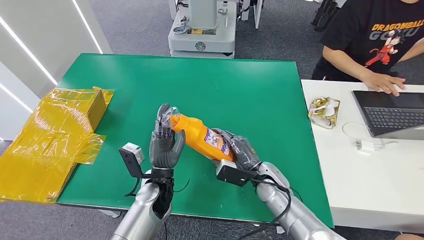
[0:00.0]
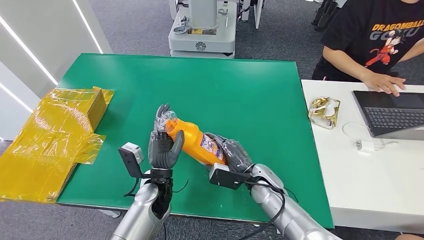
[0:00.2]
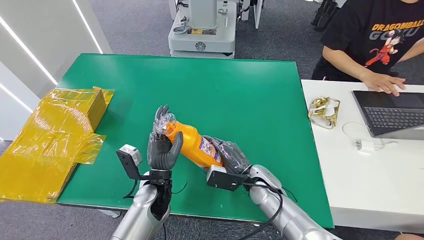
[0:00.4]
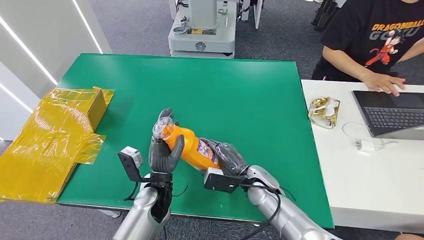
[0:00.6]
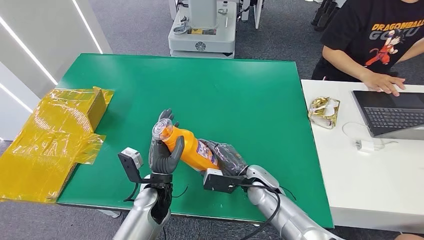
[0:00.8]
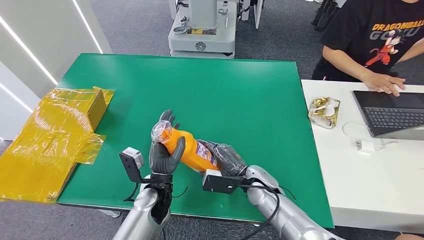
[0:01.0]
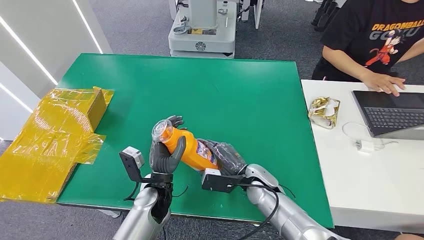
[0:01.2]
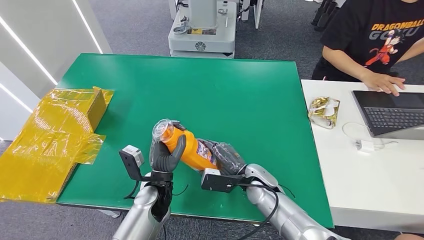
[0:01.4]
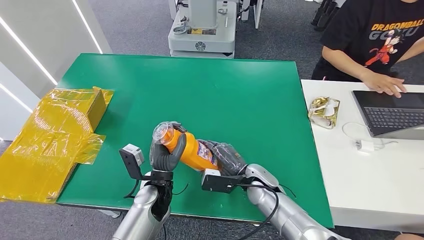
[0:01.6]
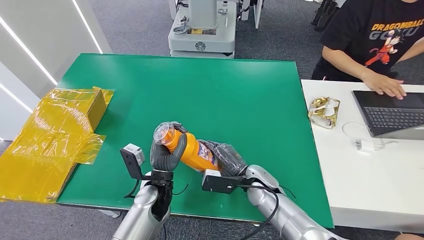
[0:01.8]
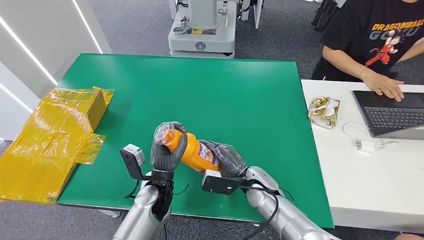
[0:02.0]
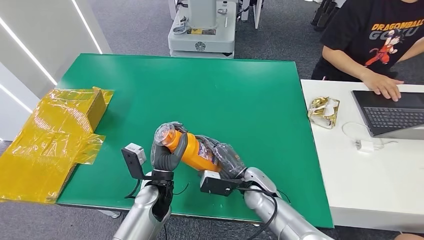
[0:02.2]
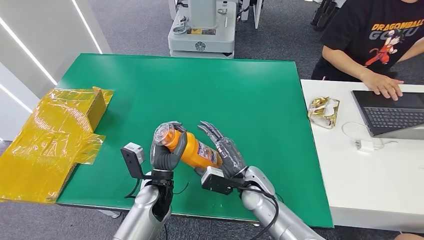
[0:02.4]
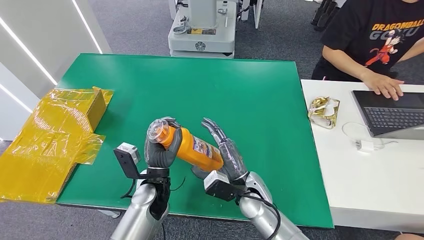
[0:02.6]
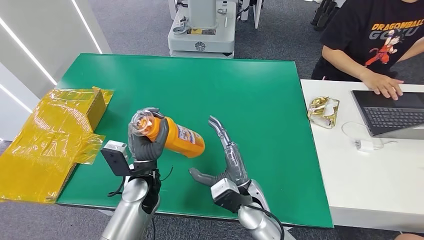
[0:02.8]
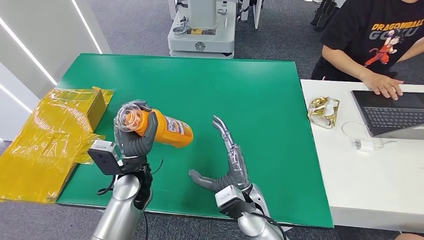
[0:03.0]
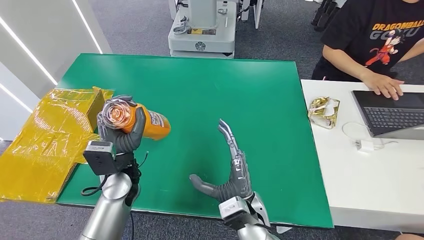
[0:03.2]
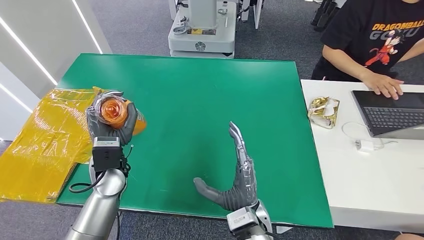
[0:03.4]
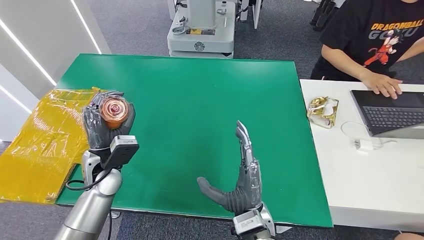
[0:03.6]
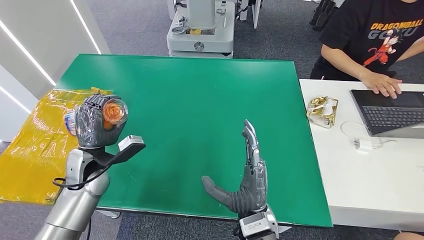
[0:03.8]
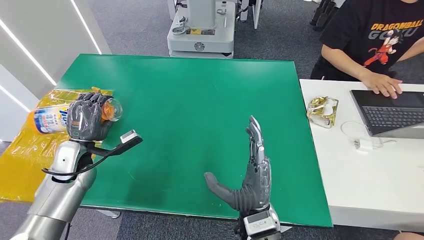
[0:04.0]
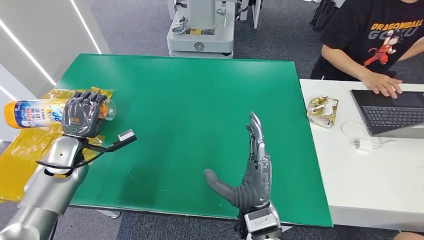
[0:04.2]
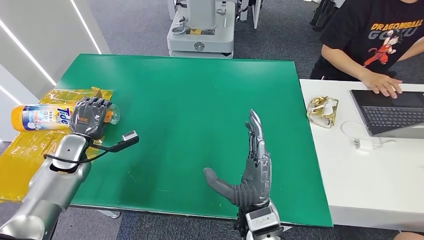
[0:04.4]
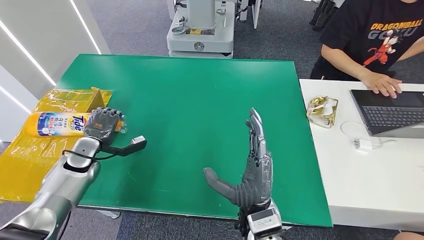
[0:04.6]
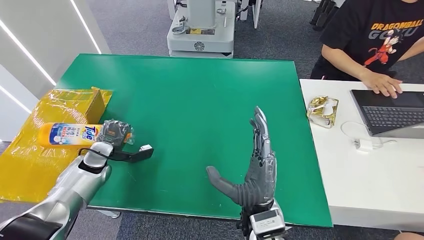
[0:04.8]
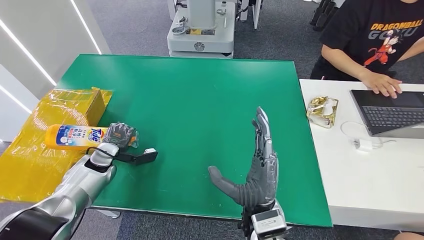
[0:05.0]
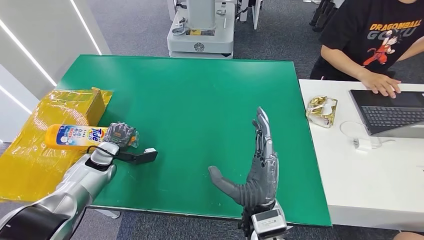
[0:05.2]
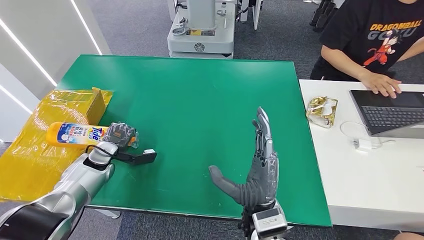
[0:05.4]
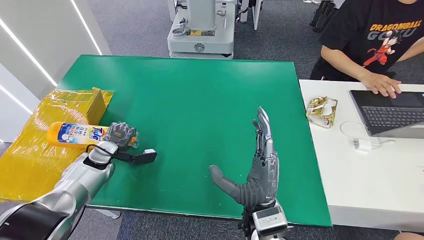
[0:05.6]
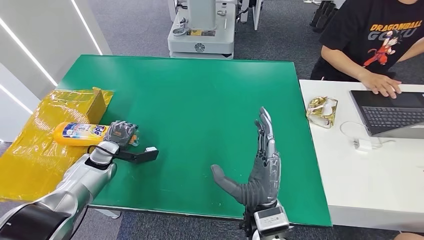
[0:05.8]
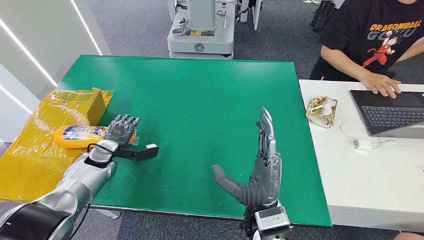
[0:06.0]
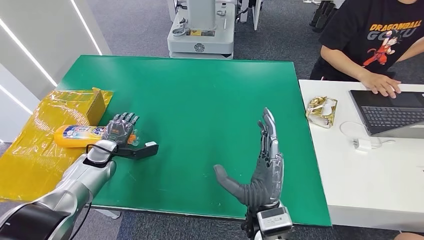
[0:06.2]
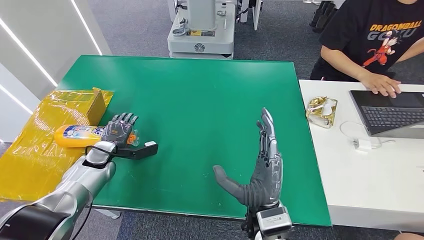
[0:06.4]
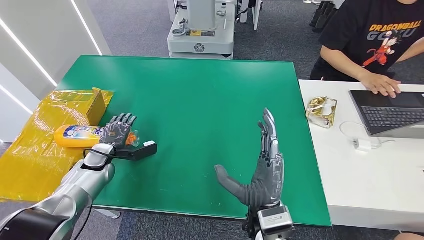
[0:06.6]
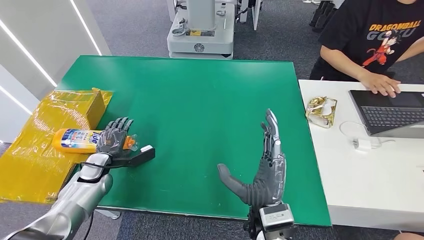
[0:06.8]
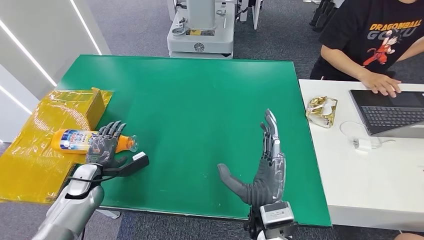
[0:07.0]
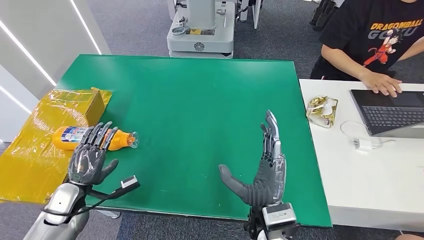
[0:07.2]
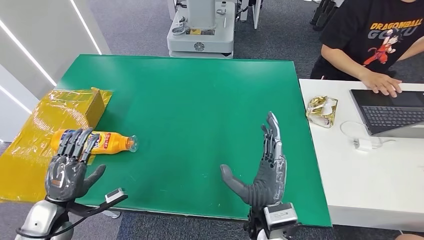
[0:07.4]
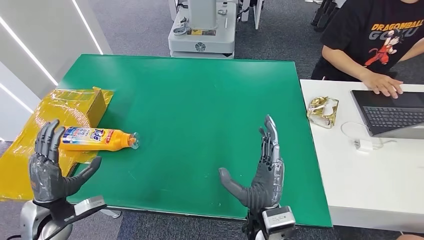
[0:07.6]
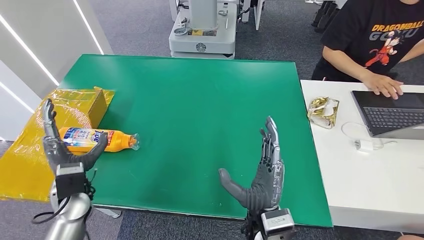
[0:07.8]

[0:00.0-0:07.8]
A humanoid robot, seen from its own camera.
Step, 0:00.0 to 0:07.8: Turn the bottle to the front side.
0:00.0 to 0:01.6: The hands make only small movements.
0:01.6 to 0:03.2: The right hand moves backward, roughly 10 cm; the left hand travels to the left and upward by approximately 10 cm.
0:06.2 to 0:07.8: The left hand goes roughly 15 cm backward and upward.

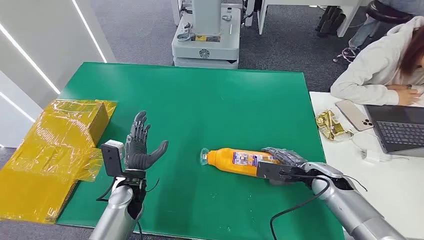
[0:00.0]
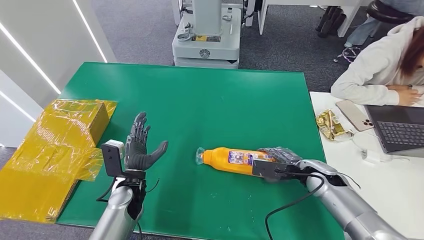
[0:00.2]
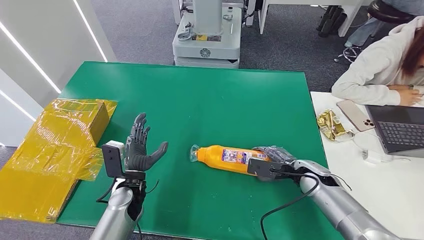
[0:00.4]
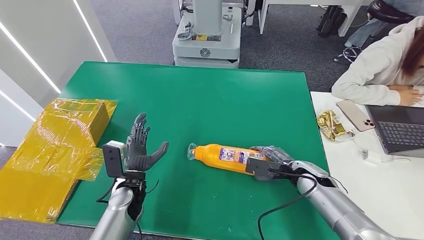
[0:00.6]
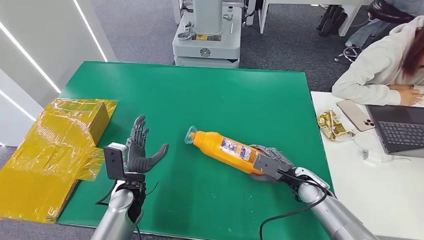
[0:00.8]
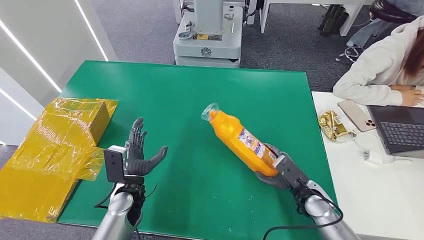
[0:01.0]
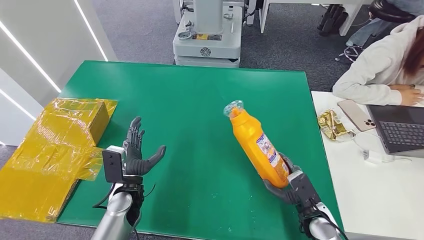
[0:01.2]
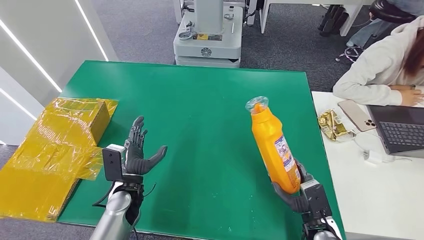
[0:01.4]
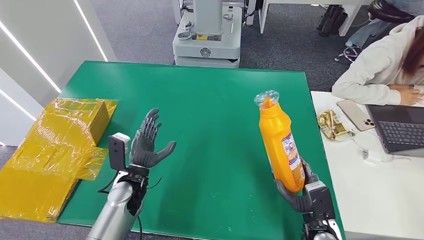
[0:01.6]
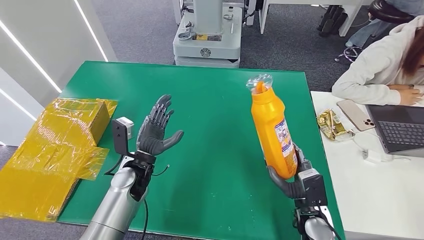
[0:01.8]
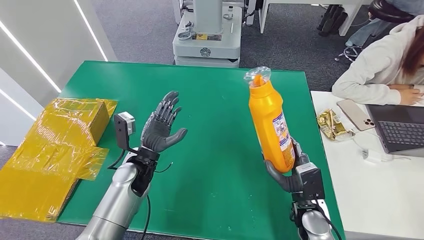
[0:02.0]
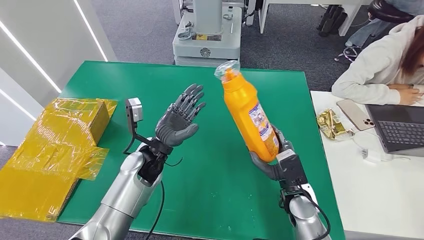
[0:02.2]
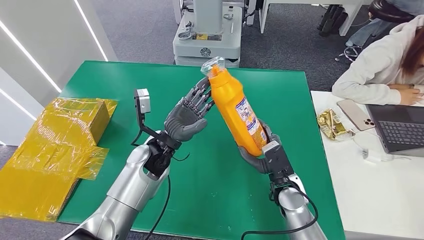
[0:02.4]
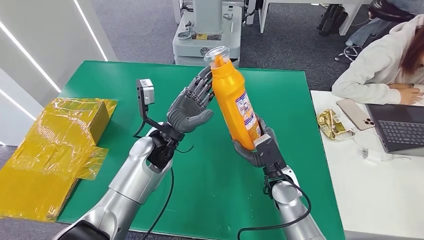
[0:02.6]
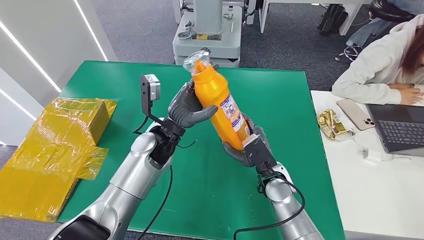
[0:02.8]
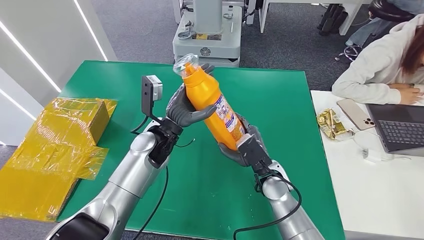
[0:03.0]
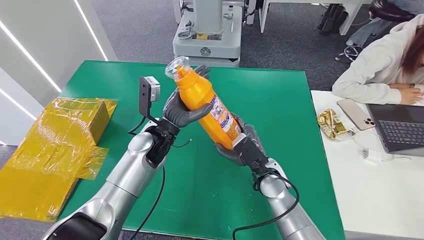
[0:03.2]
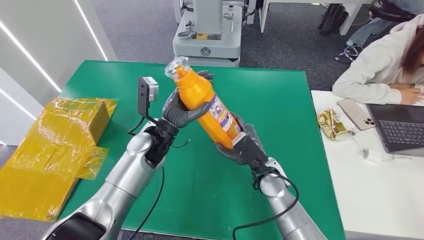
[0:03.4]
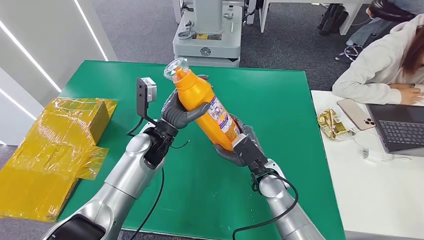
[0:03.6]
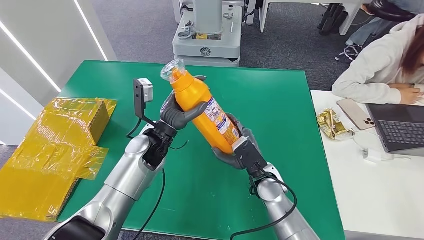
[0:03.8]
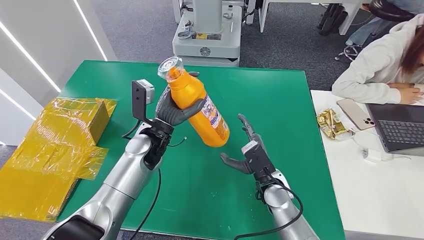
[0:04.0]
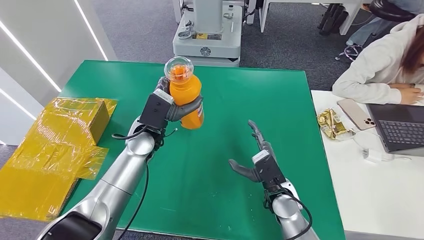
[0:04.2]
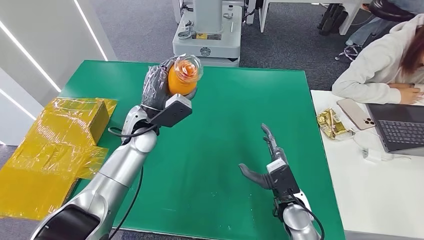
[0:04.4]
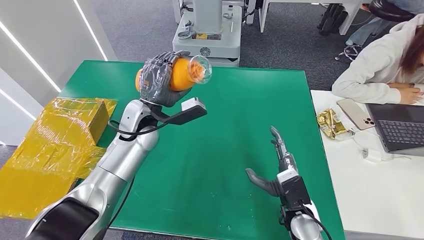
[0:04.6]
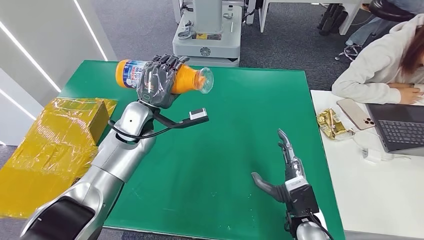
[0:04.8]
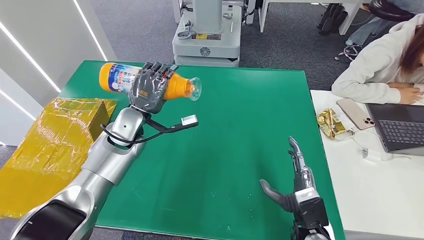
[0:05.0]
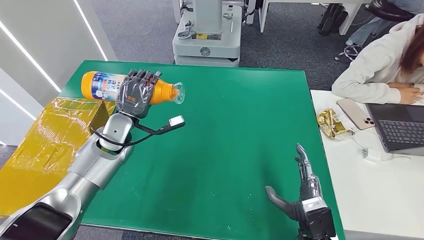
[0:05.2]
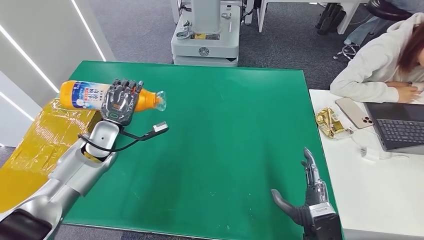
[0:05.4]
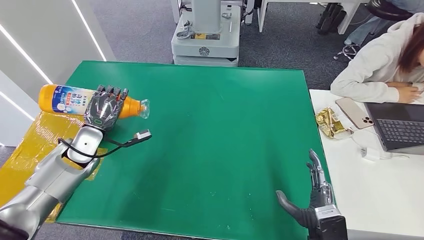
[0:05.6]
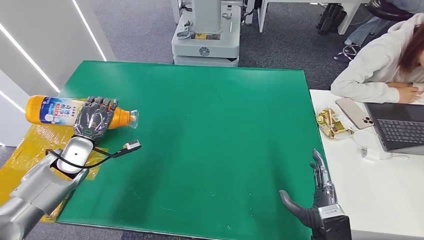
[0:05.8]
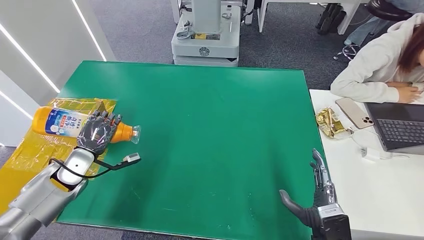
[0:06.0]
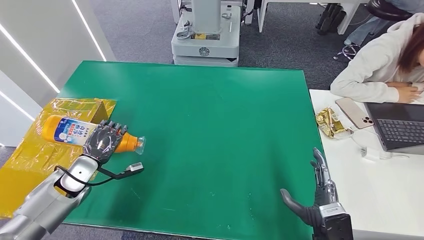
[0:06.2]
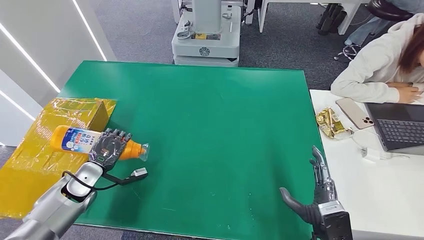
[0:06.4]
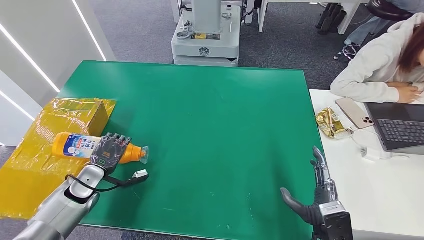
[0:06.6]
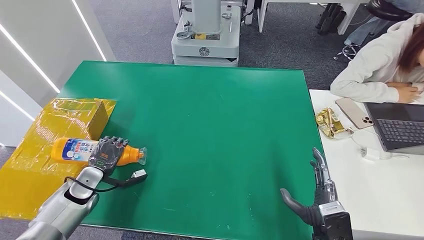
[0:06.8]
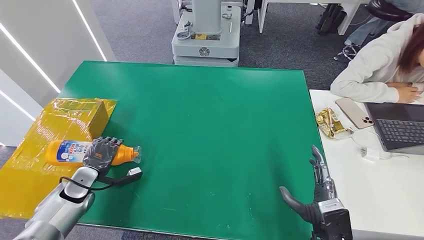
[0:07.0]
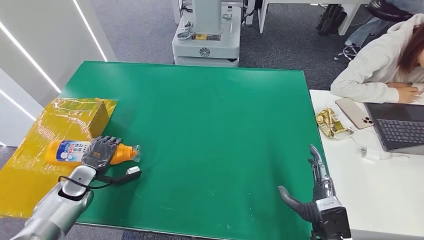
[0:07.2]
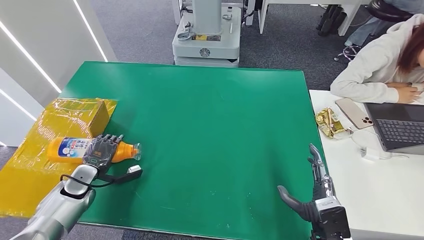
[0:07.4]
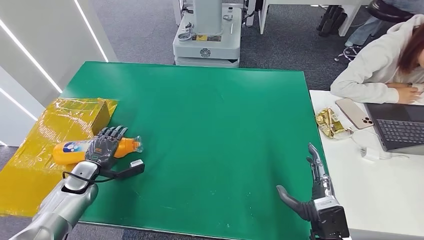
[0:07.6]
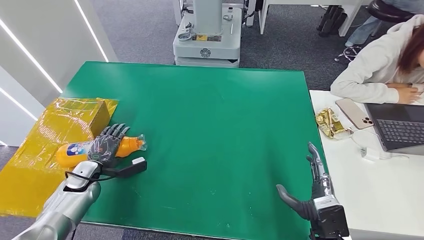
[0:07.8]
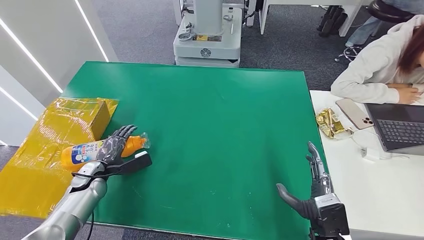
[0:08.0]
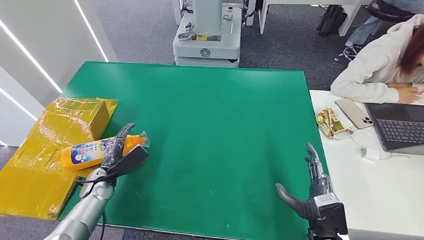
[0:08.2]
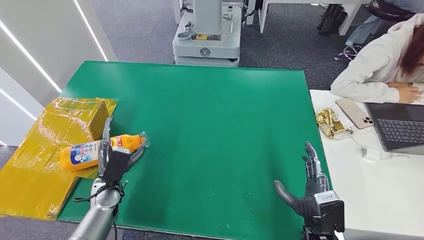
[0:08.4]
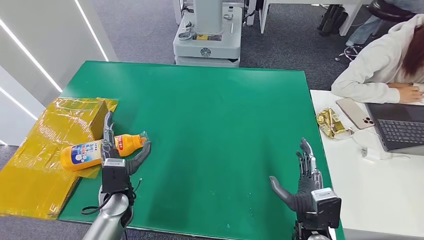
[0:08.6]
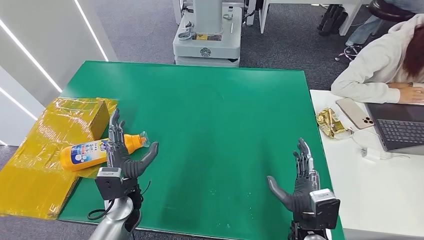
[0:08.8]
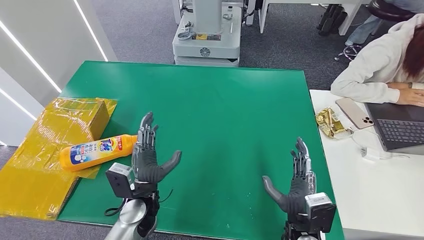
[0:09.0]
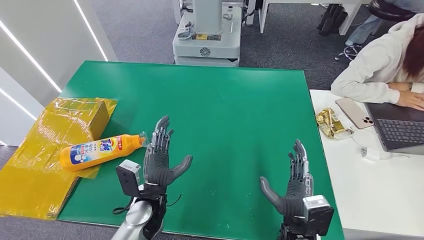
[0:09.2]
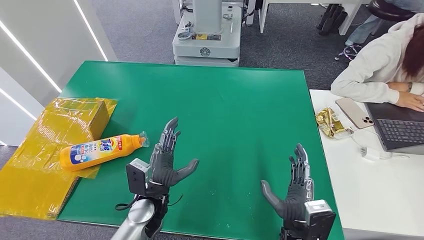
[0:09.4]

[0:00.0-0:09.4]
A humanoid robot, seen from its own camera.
Step, 0:00.0 to 0:02.8: Pick up the bottle from the table.
Step, 0:03.0 to 0:09.4: Turn the bottle to the front side.
0:01.6 to 0:03.2: The right hand is displaced to the left, forward and upward by some 20 cm. The left hand travels upward, forward and to the right by about 15 cm.
0:03.2 to 0:04.8: The left hand shifts by some 5 cm, while the right hand shifts approximately 10 cm backward and to the right.
0:06.2 to 0:07.8: The left hand changes place by approximately 5 cm.
0:07.8 to 0:09.4: The right hand moves to the left, about 5 cm, while the left hand shifts roughly 25 cm to the right.
